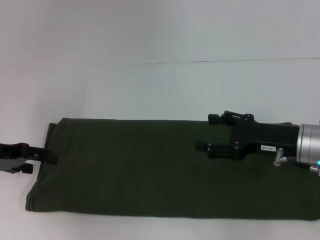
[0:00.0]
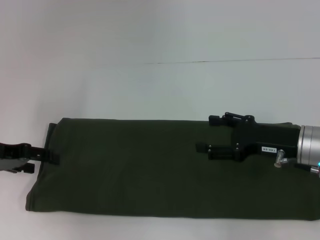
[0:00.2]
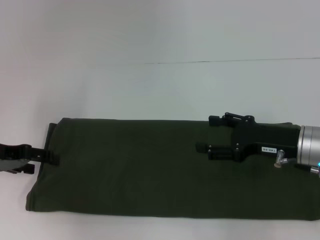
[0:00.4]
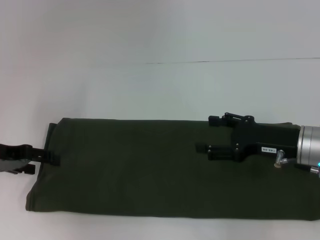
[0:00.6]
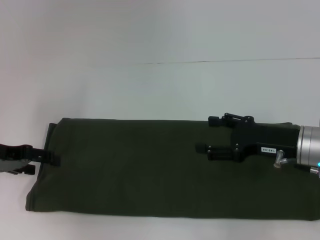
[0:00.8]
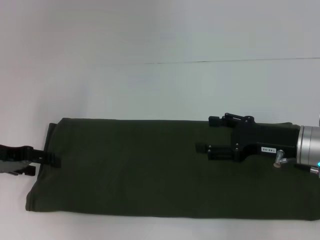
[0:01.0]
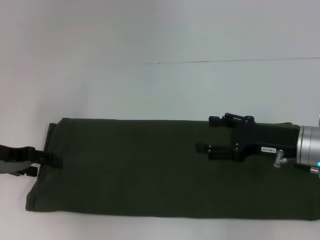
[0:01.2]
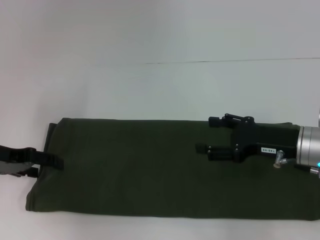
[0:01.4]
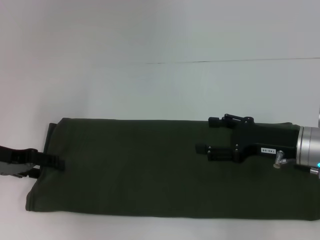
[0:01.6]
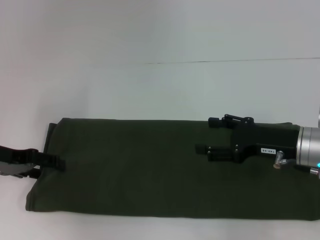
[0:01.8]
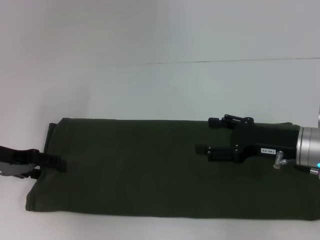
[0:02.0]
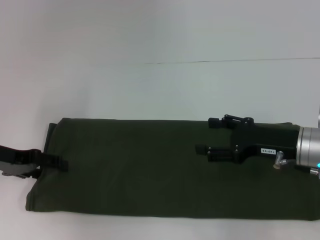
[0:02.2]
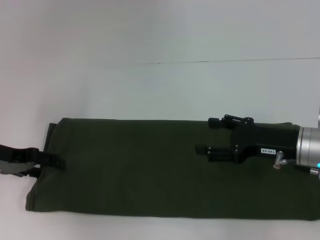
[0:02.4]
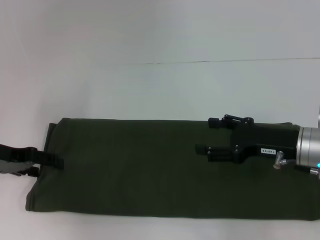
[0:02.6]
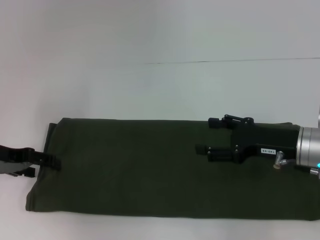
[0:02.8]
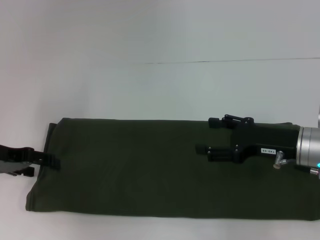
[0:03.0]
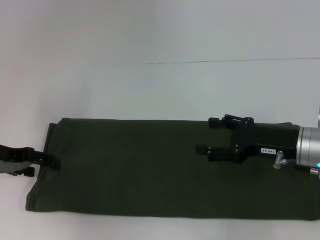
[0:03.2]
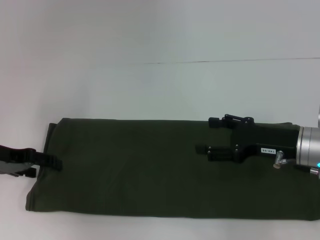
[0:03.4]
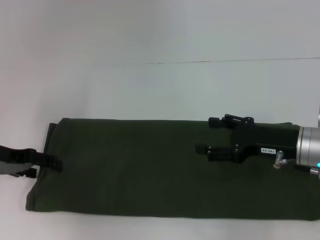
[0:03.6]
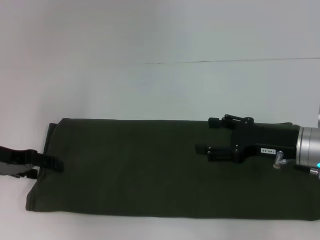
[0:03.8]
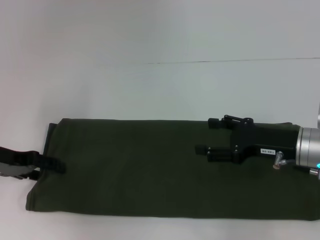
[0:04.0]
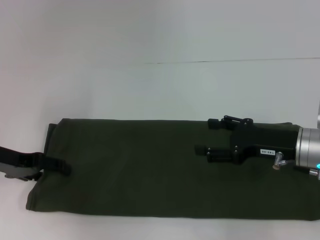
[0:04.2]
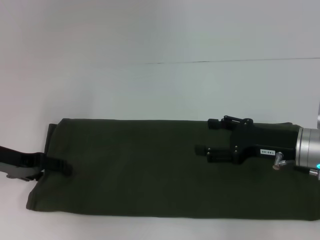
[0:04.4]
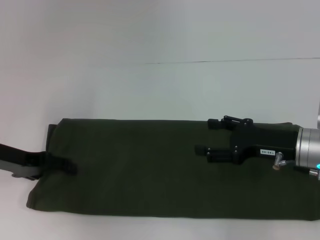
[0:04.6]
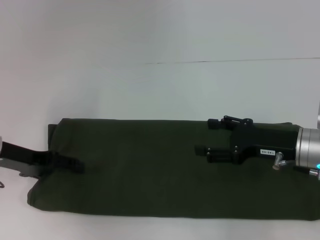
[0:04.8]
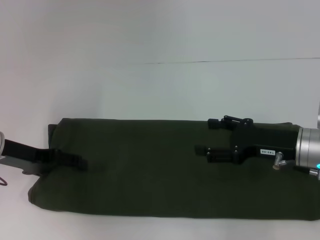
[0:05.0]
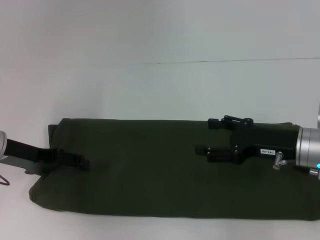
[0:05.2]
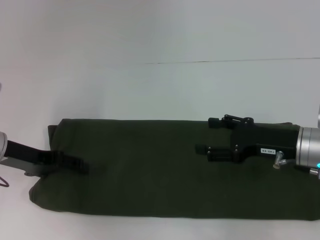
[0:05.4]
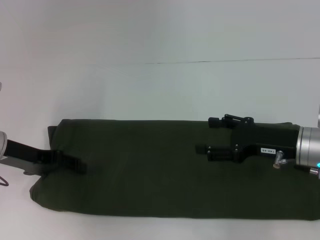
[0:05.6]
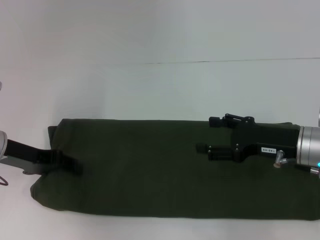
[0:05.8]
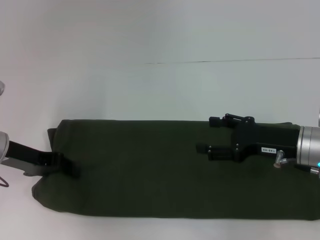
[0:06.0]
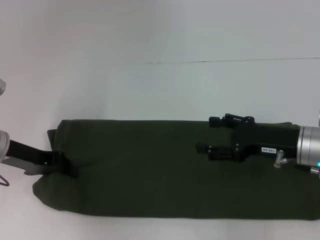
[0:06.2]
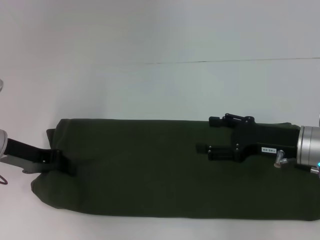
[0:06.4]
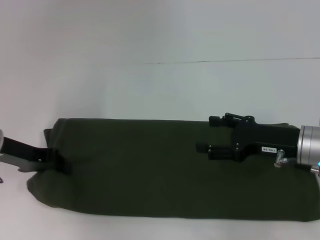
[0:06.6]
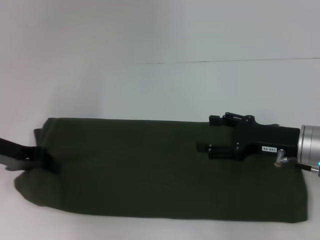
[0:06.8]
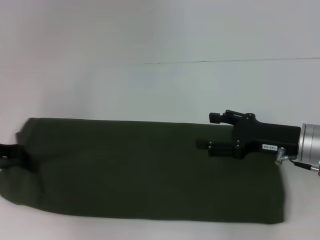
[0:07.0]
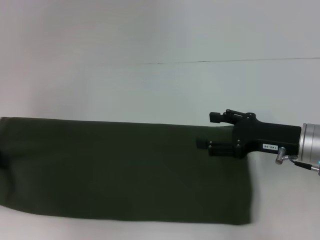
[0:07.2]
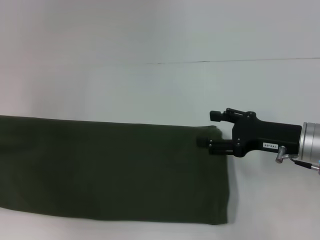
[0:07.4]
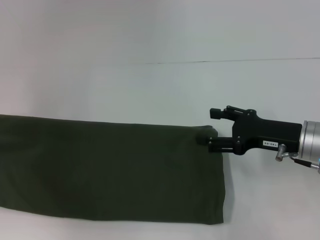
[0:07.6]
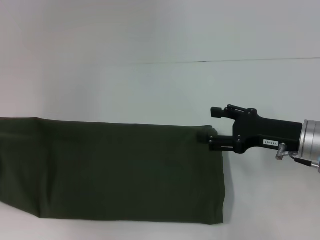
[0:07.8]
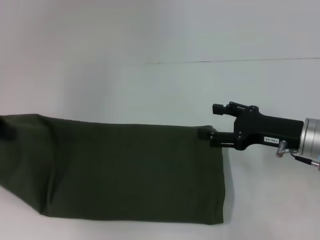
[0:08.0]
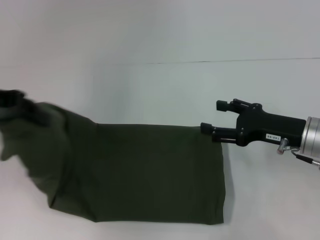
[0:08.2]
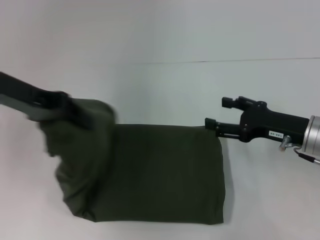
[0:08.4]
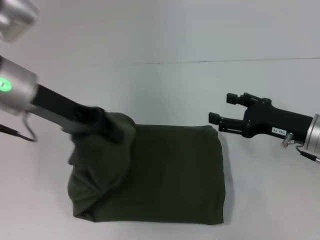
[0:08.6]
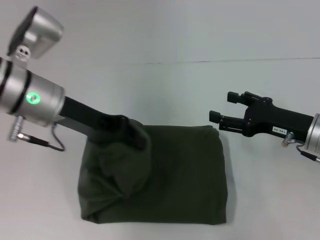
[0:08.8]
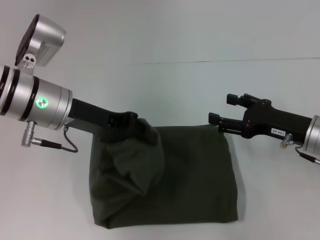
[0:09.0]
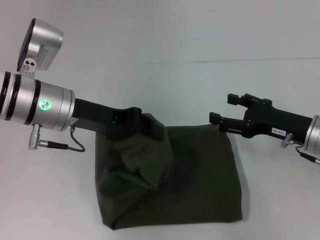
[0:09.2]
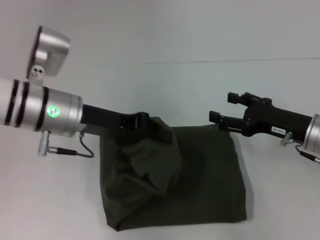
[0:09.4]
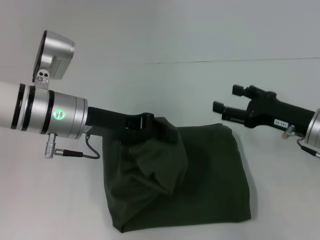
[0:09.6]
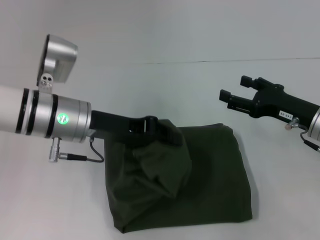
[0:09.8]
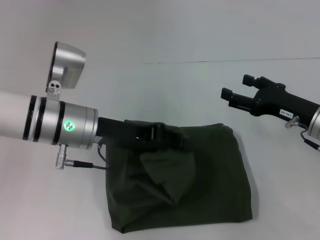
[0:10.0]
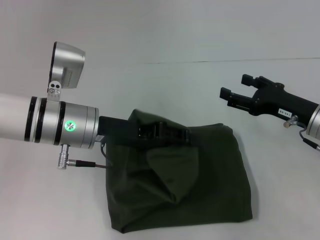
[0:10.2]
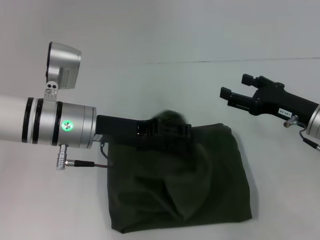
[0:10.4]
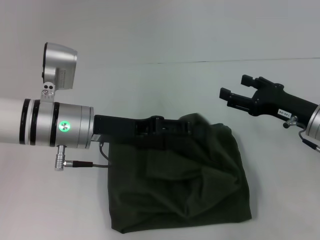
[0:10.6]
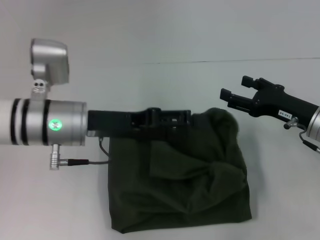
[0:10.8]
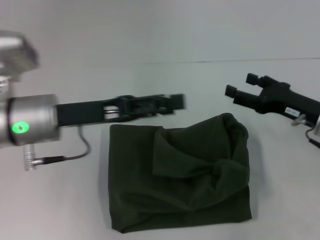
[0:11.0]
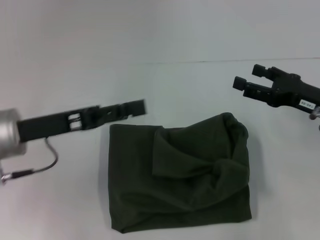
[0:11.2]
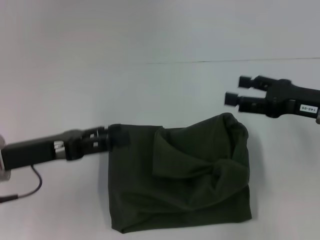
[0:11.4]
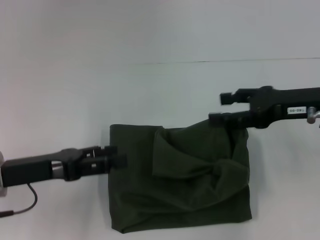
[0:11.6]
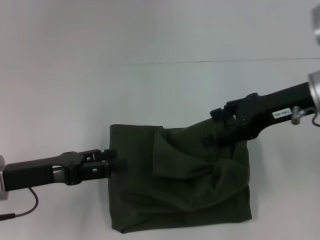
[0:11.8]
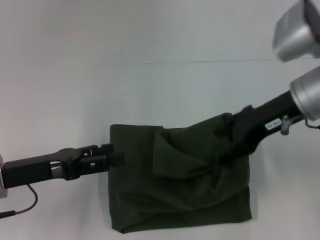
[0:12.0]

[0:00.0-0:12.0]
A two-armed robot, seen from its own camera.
Step, 0:00.0 to 0:10.8: Fold the clothes with your left hand.
0:00.0 to 0:01.6: The grippers stay close to where they were, moving slightly.
0:01.6 to 0:03.0: Both grippers stay about where they are.
0:03.0 to 0:04.4: The grippers make only small movements.
0:04.4 to 0:06.0: The left gripper closes up.
0:06.0 to 0:07.6: The left gripper moves to the left and upward, some 15 cm, and closes its fingers.
0:07.6 to 0:09.0: The left gripper heads to the right, covering some 20 cm.
0:09.0 to 0:10.4: The left gripper opens up.
0:10.4 to 0:12.0: The left gripper shifts roughly 15 cm to the left and backward, and opens its fingers. The right gripper shifts approximately 15 cm upward and to the left.

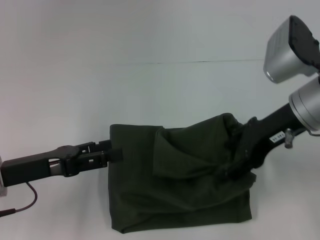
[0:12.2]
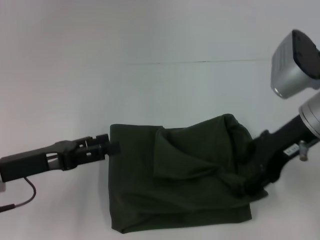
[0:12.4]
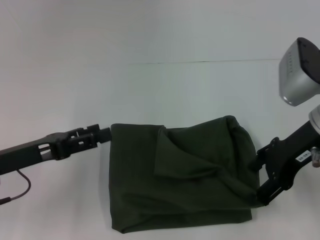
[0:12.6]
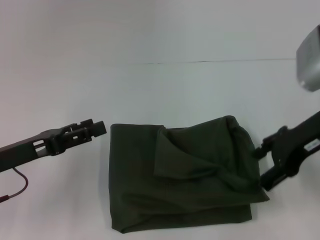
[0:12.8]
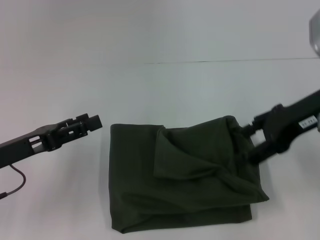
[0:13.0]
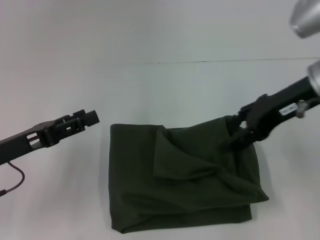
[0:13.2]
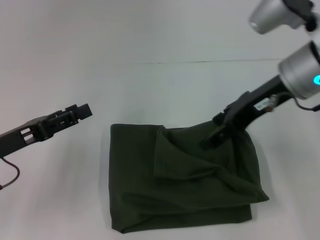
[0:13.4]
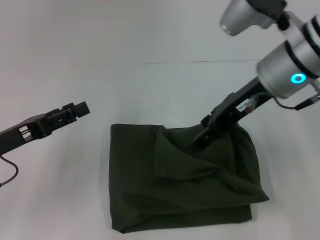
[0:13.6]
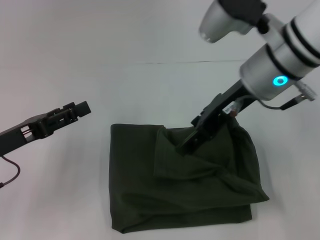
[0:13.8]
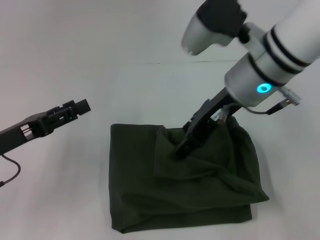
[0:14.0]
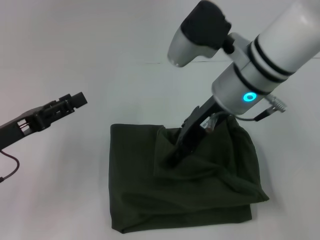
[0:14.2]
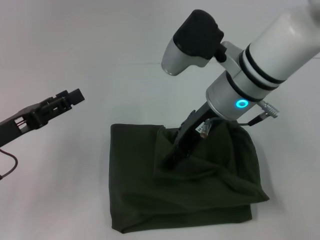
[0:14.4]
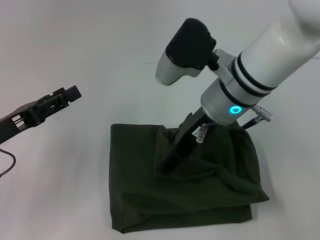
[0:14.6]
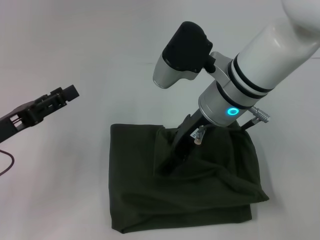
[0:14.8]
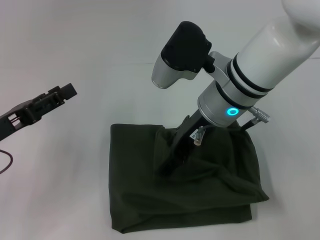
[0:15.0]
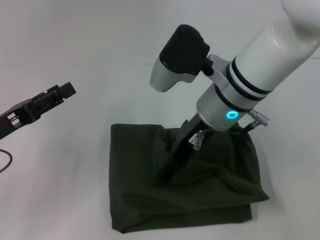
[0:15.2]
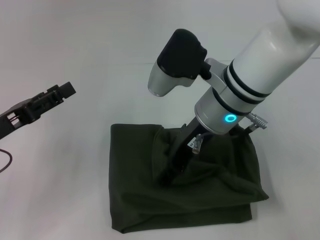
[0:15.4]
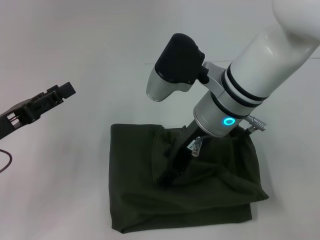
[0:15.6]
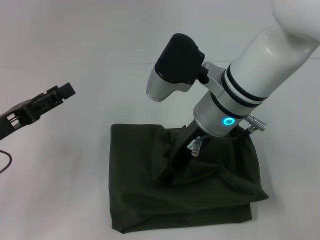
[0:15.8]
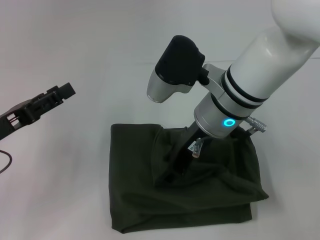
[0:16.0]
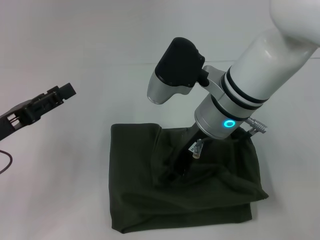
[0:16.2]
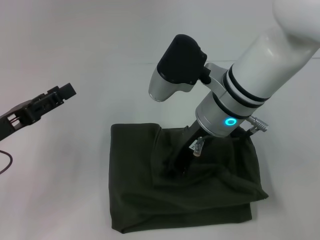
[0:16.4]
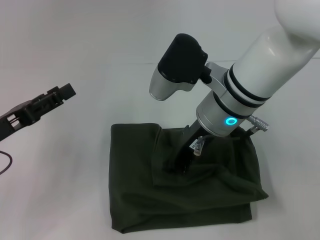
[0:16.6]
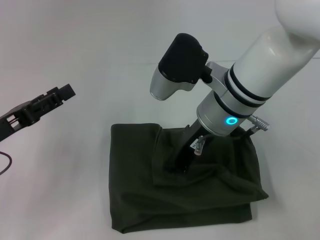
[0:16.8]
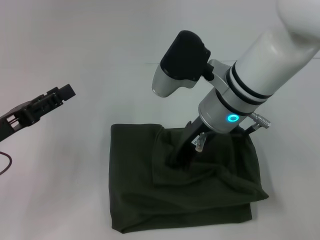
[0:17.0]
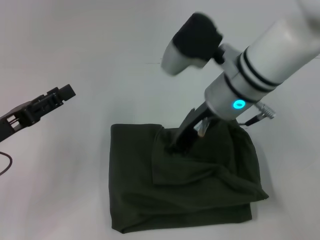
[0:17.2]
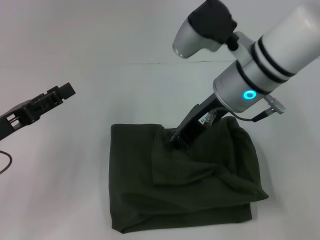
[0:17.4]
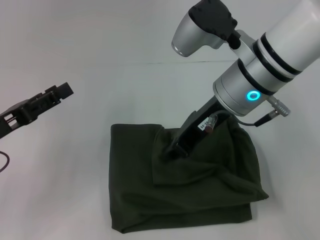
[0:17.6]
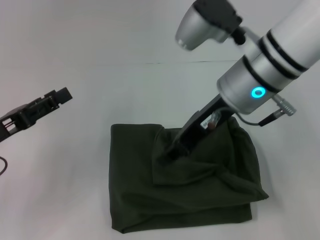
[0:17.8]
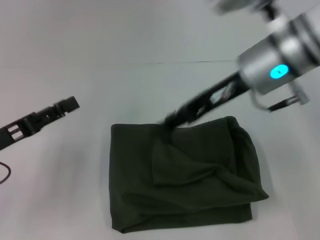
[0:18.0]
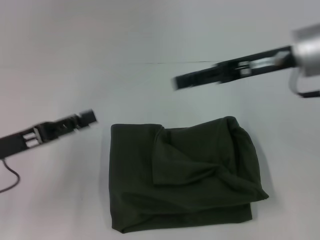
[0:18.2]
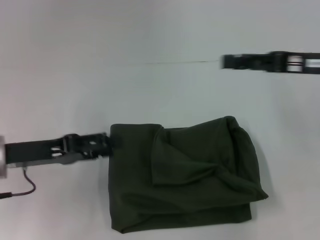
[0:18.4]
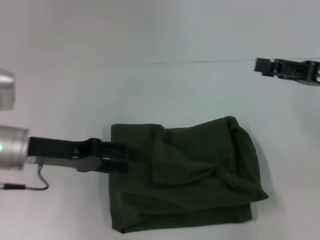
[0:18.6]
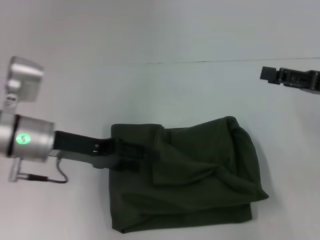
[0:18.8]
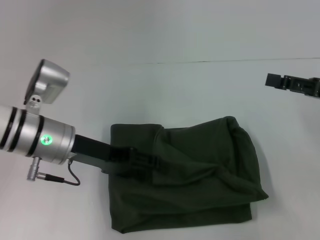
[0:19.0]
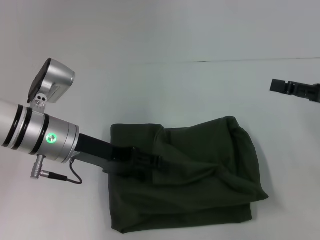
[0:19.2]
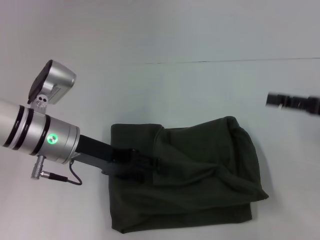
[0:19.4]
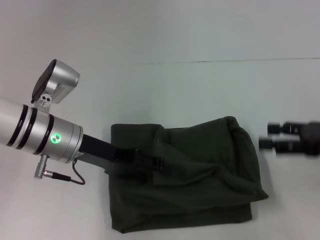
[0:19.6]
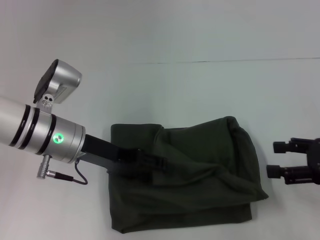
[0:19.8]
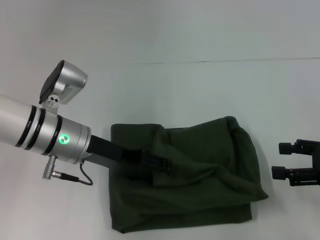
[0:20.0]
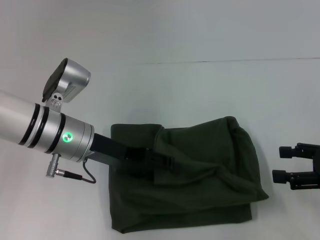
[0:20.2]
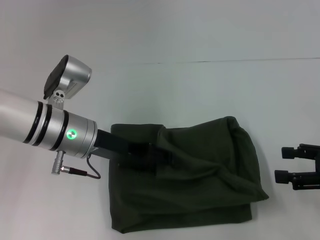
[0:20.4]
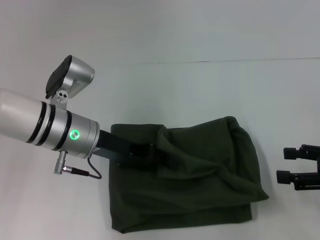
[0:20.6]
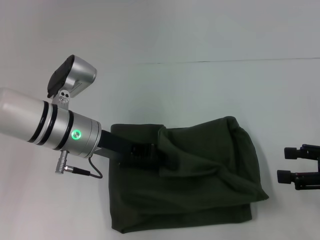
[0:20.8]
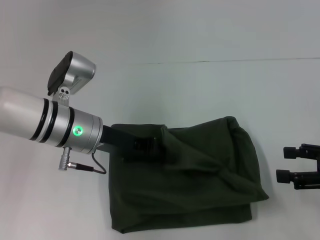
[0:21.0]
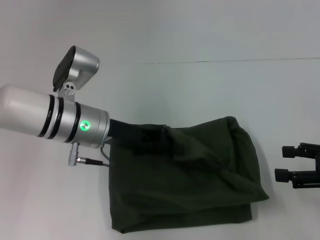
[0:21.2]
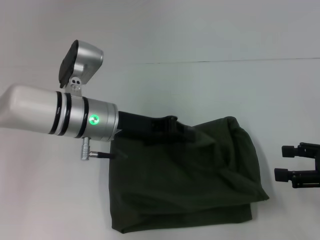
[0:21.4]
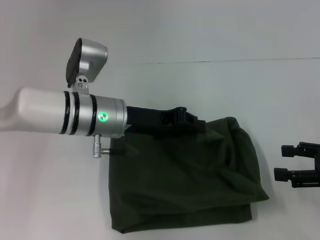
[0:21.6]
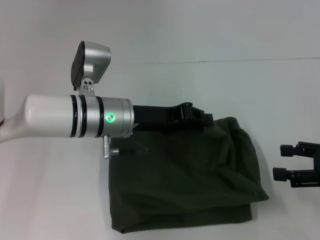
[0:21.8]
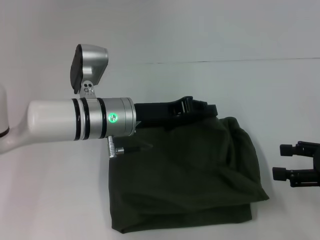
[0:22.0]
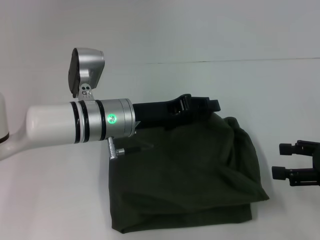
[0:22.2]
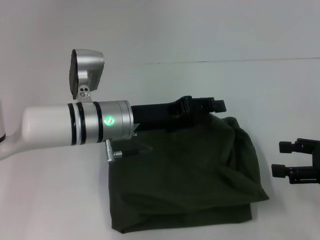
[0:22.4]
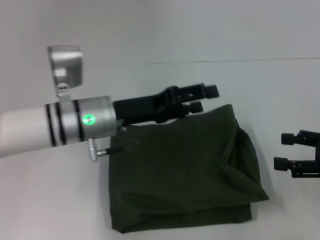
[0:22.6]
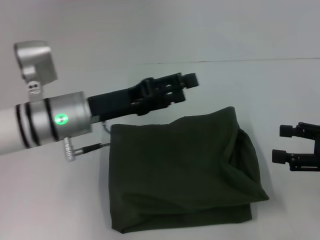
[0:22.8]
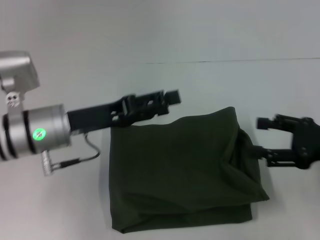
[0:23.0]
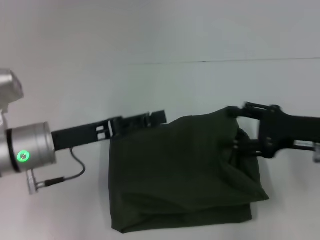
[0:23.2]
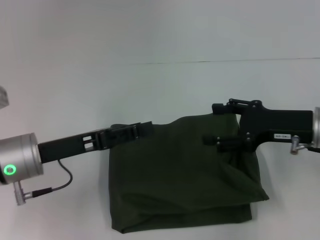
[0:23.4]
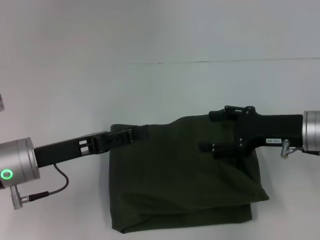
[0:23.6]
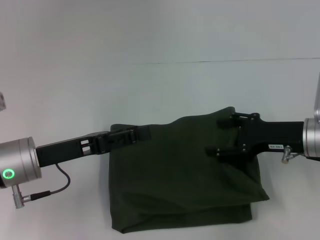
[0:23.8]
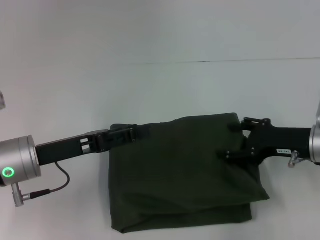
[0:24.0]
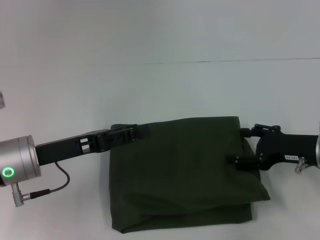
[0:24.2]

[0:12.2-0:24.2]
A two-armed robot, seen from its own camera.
0:12.2 to 0:13.8: The right gripper shifts roughly 5 cm to the left.
0:13.8 to 0:15.2: The right gripper heads to the left, covering approximately 5 cm.
0:15.2 to 0:16.6: The right gripper closes up.
0:16.6 to 0:18.2: The right gripper moves to the right and upward, roughly 15 cm, and opens up.
0:18.2 to 0:19.8: The left gripper goes some 15 cm to the right and forward; the right gripper shifts some 20 cm to the right, downward and backward, and opens up.
0:19.8 to 0:21.2: The left gripper closes its fingers.
0:22.6 to 0:24.2: The left gripper moves to the left and backward, about 10 cm. The right gripper moves to the left and forward, approximately 10 cm.
